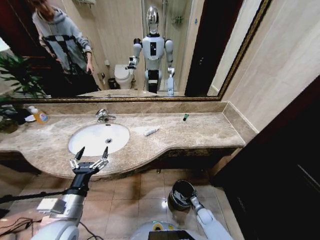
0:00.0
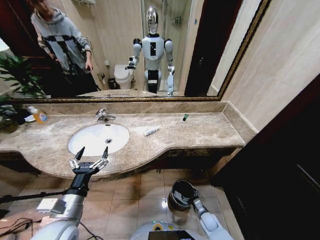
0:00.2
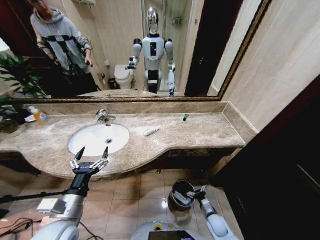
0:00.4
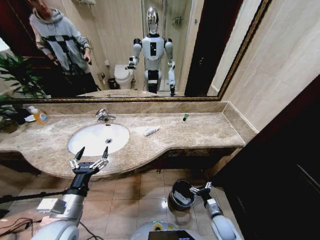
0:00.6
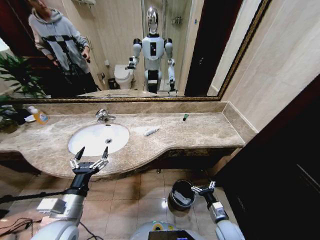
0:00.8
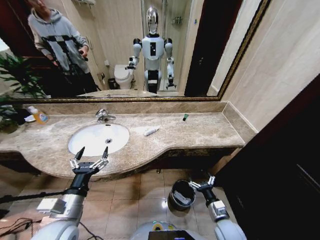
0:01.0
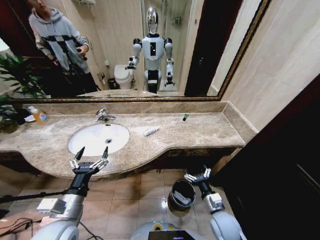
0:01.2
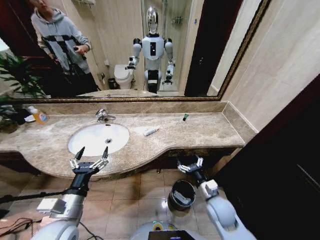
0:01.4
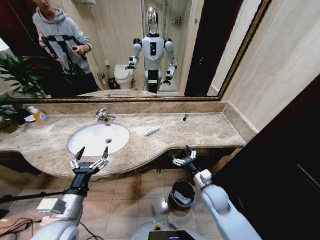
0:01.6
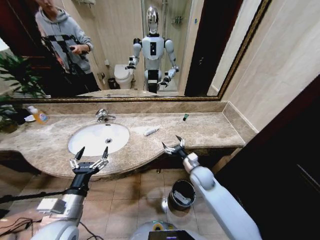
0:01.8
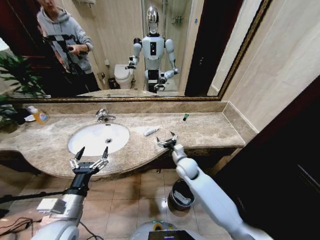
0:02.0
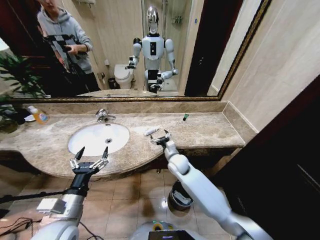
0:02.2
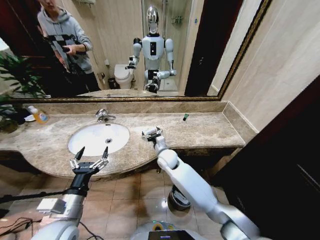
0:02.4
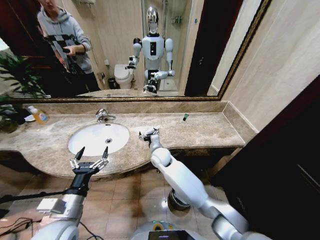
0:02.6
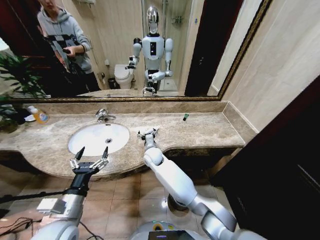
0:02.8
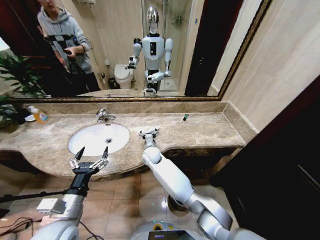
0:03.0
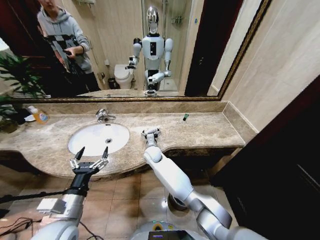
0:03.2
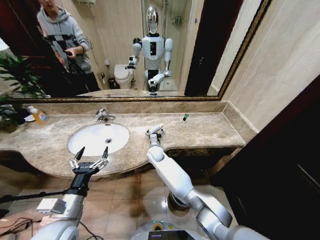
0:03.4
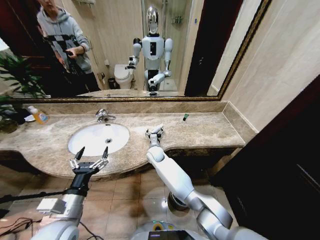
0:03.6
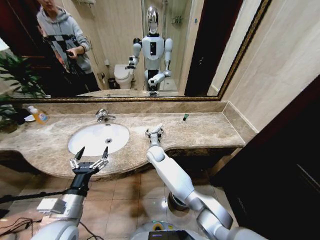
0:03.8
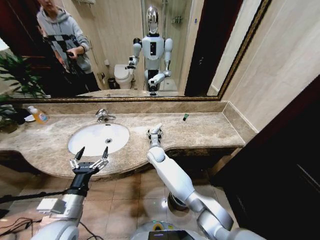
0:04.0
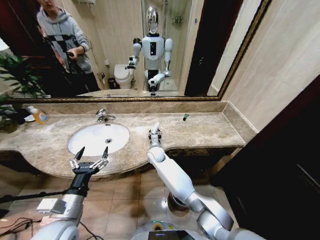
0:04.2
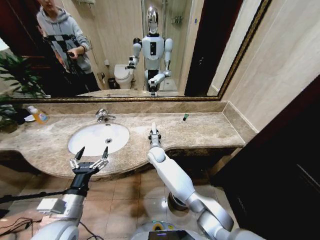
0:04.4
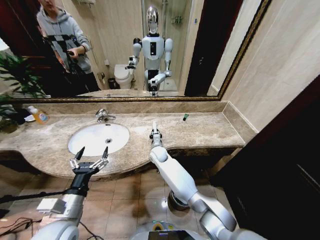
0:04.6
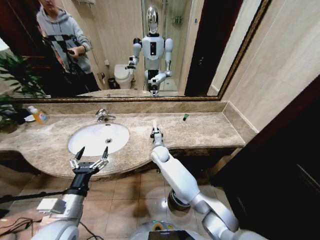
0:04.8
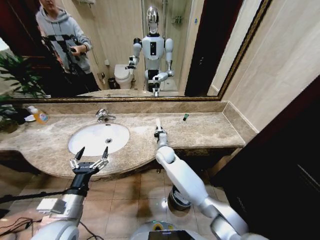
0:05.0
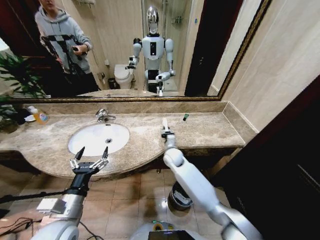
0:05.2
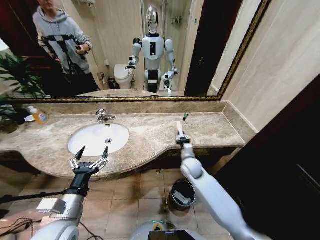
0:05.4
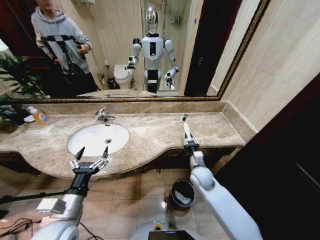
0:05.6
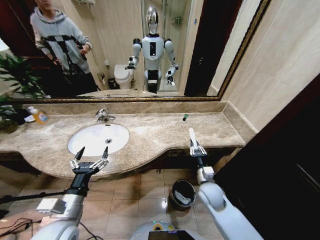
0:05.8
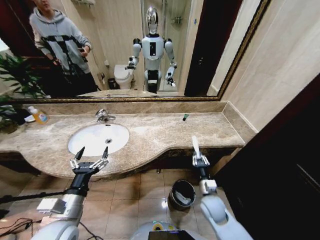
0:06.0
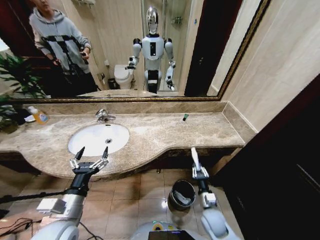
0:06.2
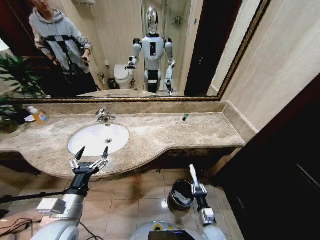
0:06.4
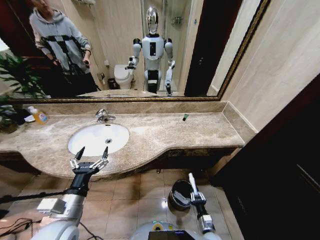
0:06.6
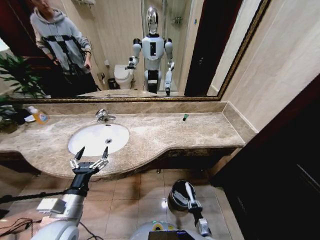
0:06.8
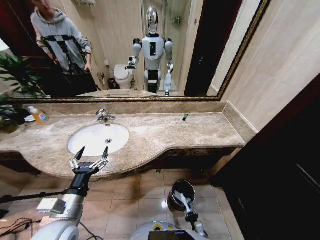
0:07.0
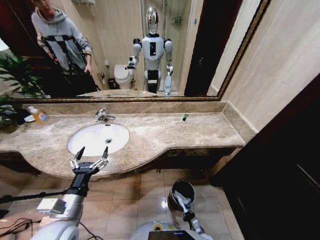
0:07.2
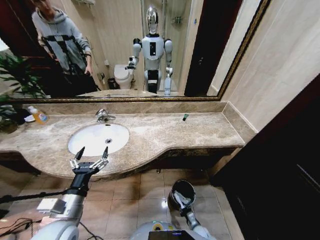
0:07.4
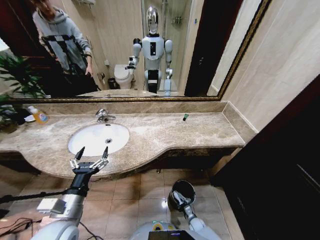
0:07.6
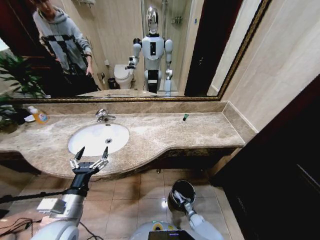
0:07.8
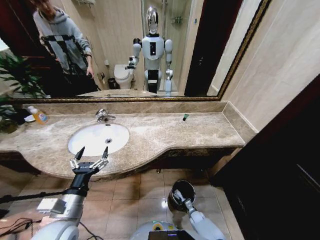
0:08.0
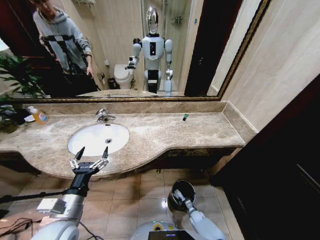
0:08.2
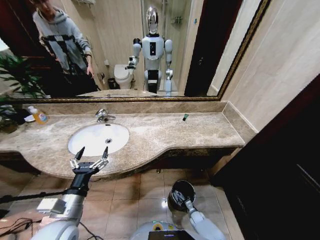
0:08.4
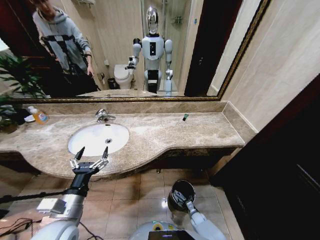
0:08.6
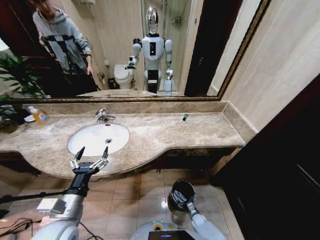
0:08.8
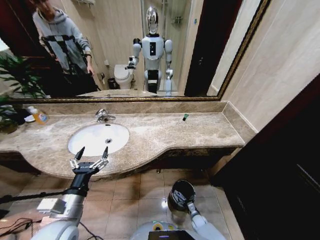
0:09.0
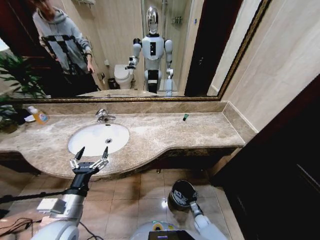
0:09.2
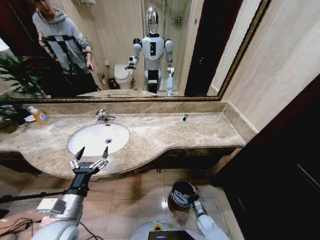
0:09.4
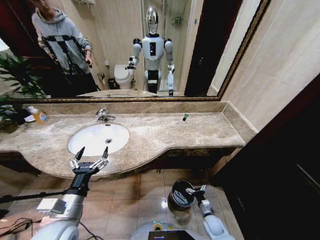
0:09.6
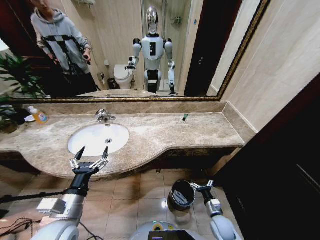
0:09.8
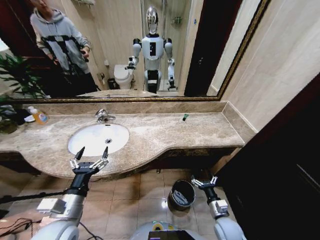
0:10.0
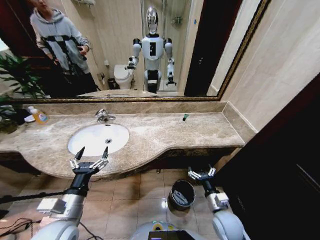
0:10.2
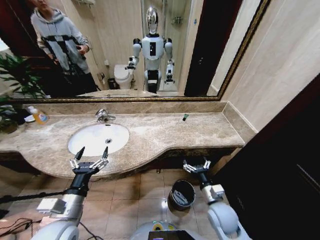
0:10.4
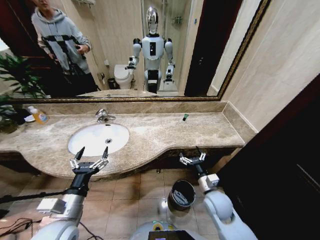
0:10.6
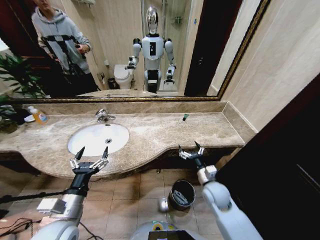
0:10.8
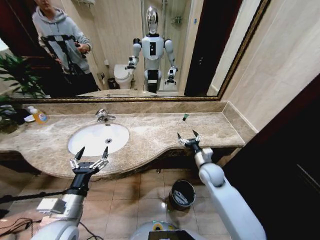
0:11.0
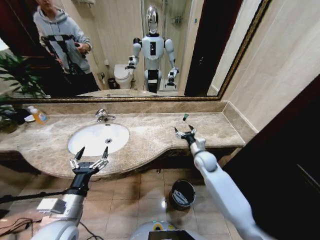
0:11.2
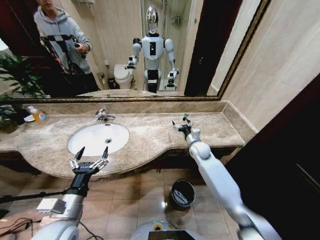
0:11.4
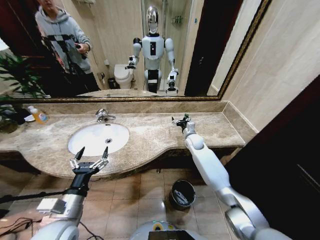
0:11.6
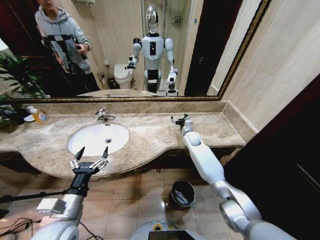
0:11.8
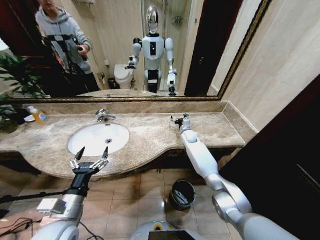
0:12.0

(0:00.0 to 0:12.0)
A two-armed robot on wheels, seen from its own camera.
Task of the whole recording: Pick up the trash from the sink and place it in the trash bin.
0:00.0 - 0:01.6: The right gripper heads upward, covering about 30 cm.
0:01.6 - 0:03.0: The right gripper shifts about 35 cm to the left and forward.
0:03.0 - 0:04.4: The right gripper closes its fingers.
0:04.4 - 0:06.0: The right gripper shifts approximately 35 cm to the right and backward.
0:06.0 - 0:07.6: The right gripper shifts some 30 cm downward.
0:07.6 - 0:09.0: The right gripper opens.
0:09.0 - 0:10.4: The right gripper moves upward, roughly 35 cm.
0:10.4 - 0:12.0: The right gripper is displaced forward by about 40 cm.

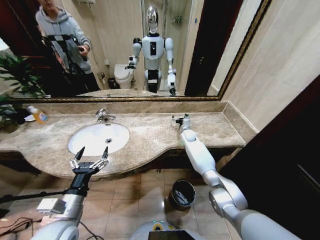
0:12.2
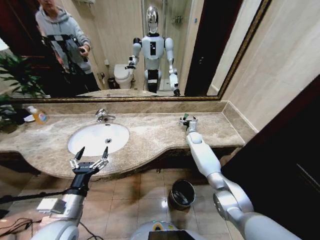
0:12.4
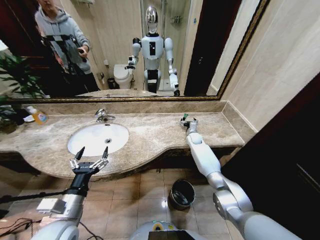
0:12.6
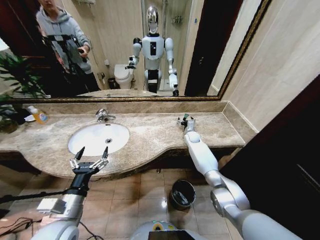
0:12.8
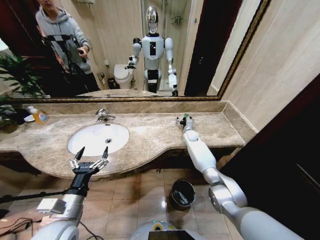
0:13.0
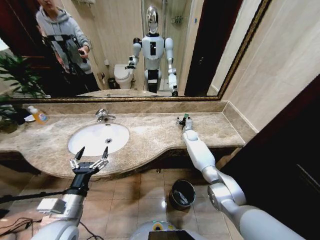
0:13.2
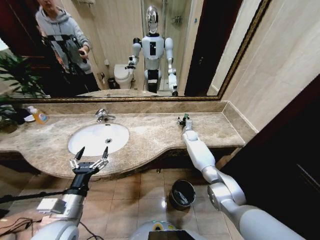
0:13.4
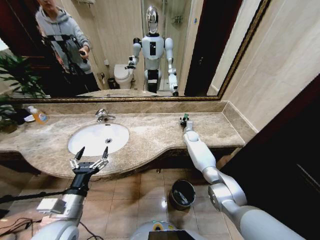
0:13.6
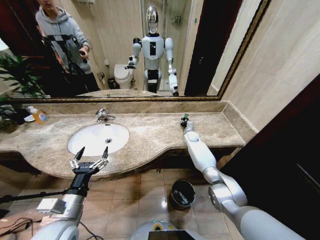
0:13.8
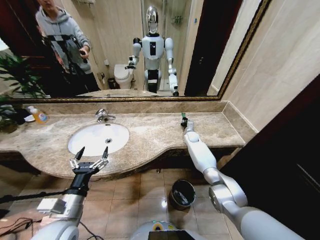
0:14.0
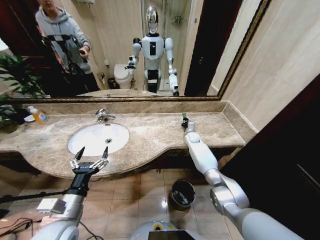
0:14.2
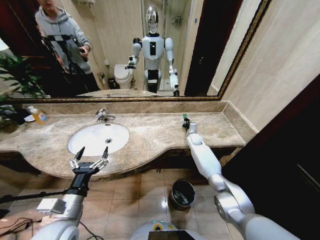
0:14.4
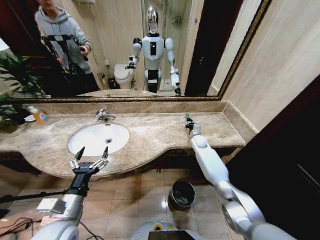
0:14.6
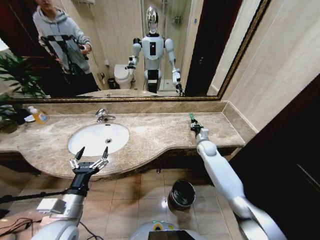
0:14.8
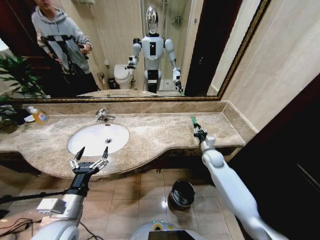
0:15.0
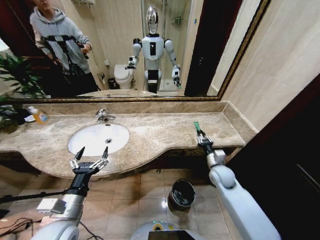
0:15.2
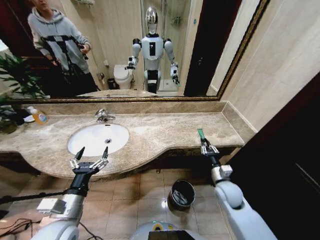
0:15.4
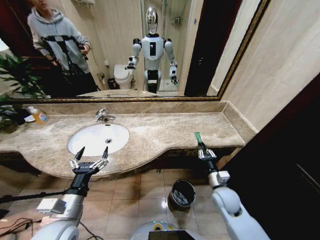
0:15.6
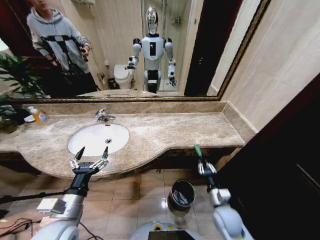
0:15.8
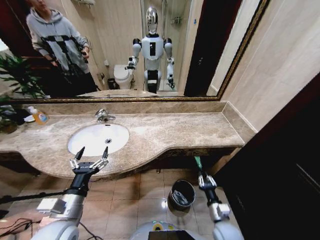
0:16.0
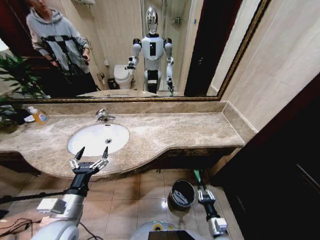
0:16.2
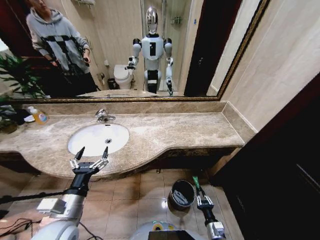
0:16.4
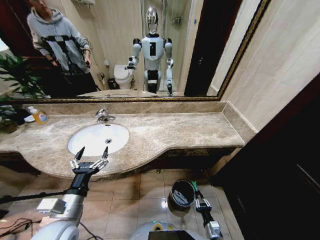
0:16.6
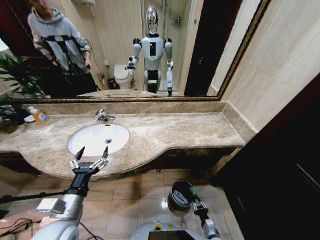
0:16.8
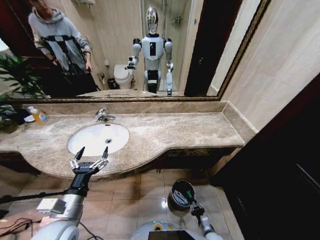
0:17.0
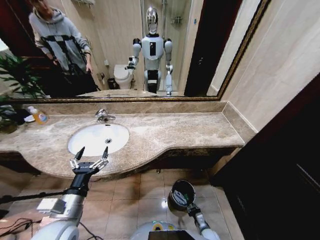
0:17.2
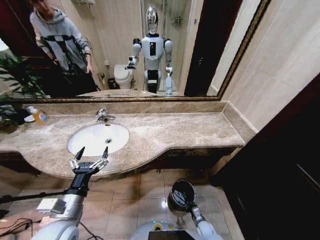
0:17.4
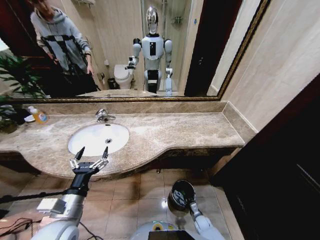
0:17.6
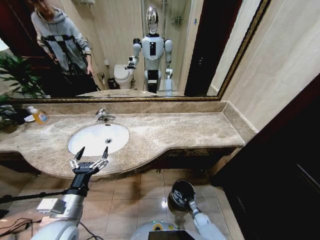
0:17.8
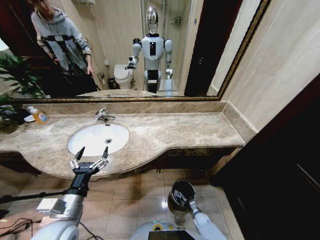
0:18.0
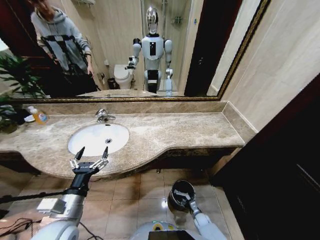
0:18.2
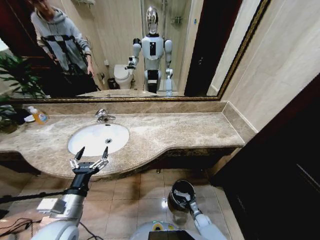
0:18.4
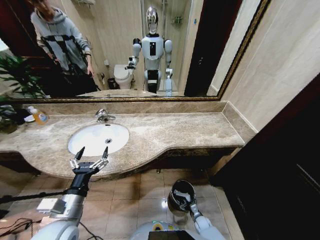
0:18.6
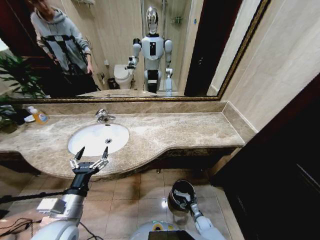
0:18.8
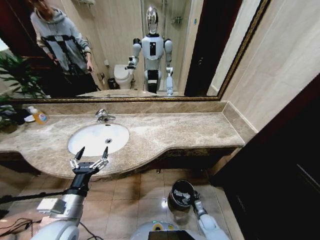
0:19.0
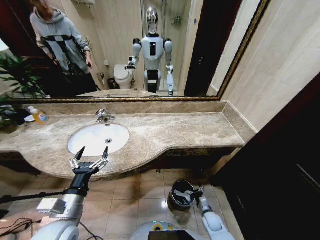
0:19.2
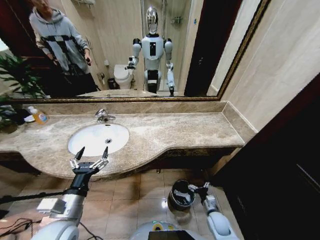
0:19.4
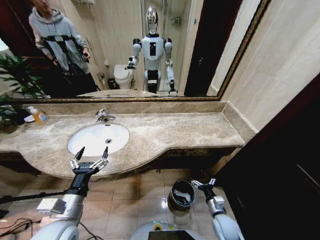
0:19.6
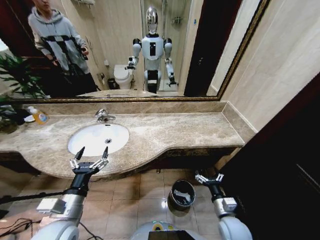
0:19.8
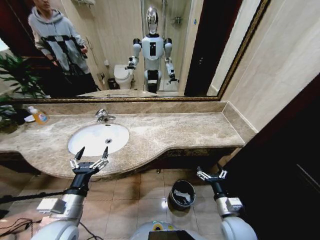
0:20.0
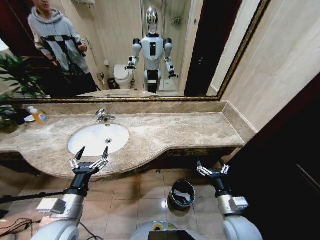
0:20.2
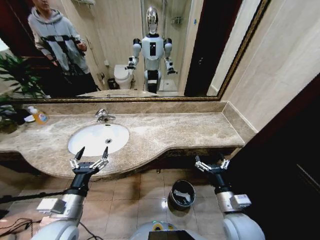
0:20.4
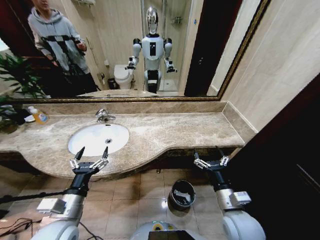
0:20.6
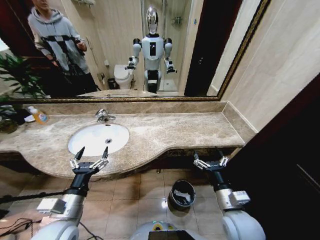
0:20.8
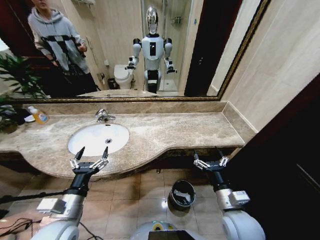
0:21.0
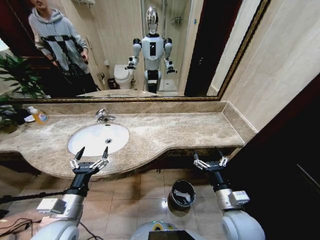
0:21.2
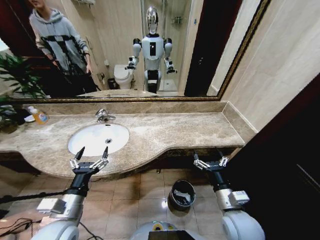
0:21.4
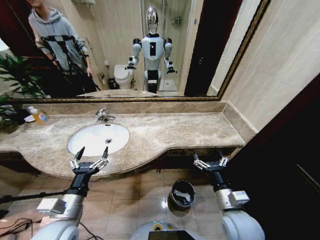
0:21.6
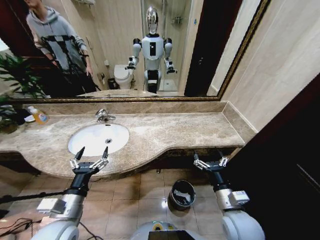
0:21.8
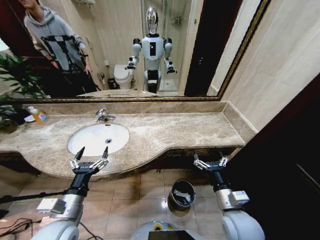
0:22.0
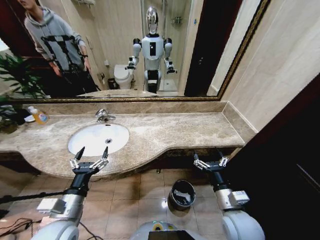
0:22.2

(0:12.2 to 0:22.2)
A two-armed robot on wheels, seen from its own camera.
Task of the whole recording: Pick up the trash from the sink and place it in the trash bin.
0:12.2 - 0:13.6: The right gripper closes its fingers.
0:13.6 - 0:15.0: The right gripper heads backward, covering about 20 cm, and closes up.
0:15.0 - 0:16.4: The right gripper goes about 40 cm backward and downward.
0:16.4 - 0:18.0: The right gripper moves downward and forward, some 20 cm.
0:18.0 - 0:19.4: The right gripper moves upward, approximately 15 cm, and opens its fingers.
0:19.4 - 0:20.8: The right gripper heads upward, covering roughly 25 cm.
0:20.8 - 0:22.2: Both grippers stay about where they are.
